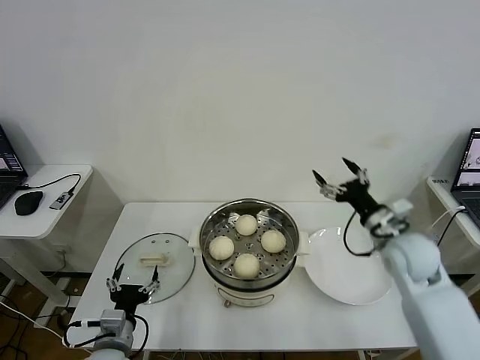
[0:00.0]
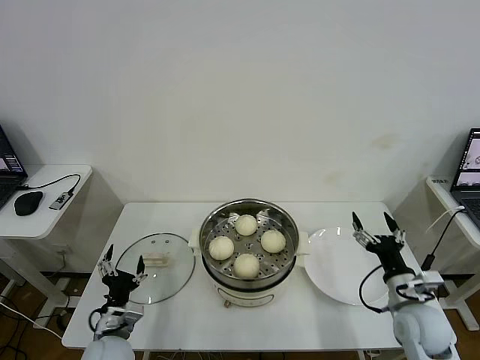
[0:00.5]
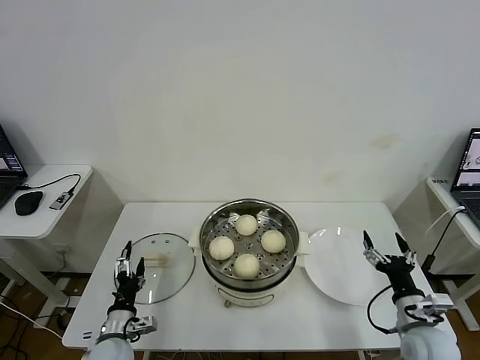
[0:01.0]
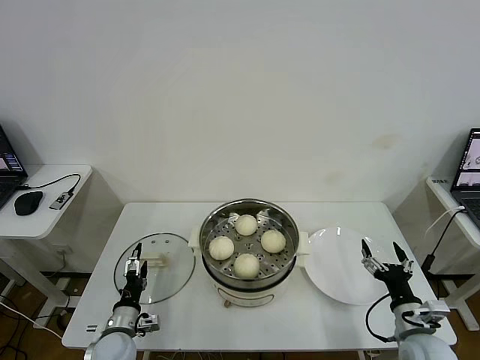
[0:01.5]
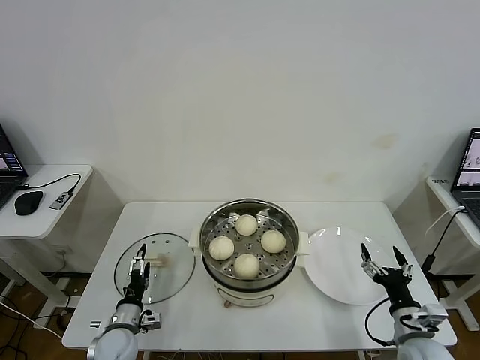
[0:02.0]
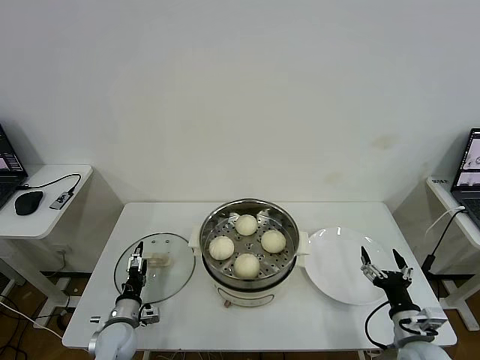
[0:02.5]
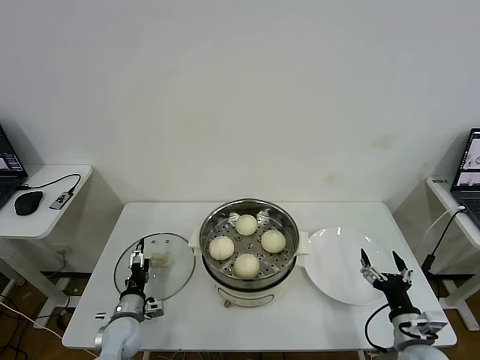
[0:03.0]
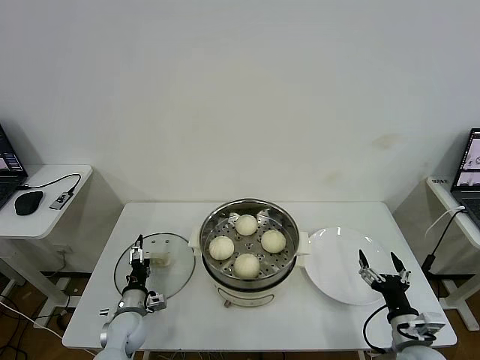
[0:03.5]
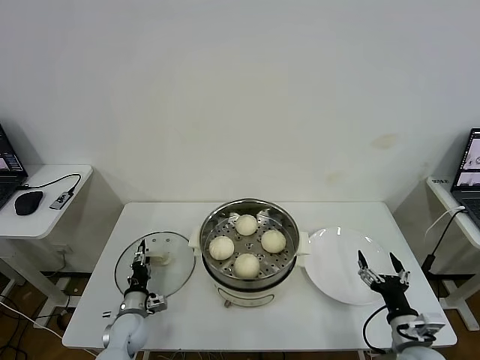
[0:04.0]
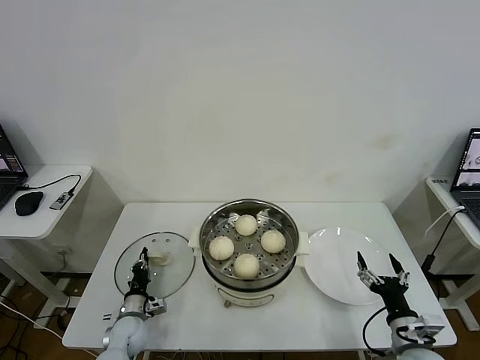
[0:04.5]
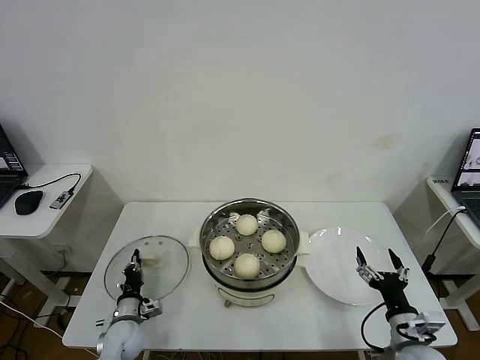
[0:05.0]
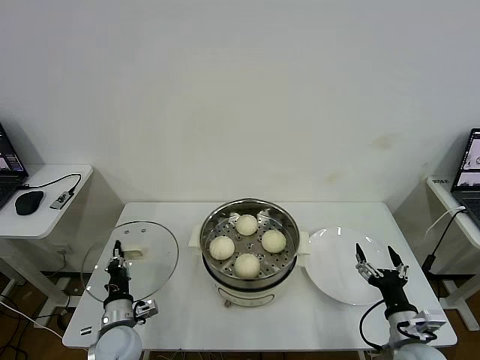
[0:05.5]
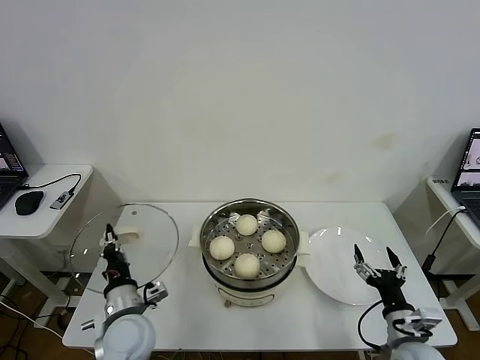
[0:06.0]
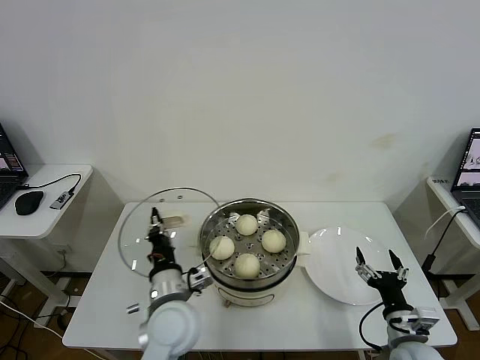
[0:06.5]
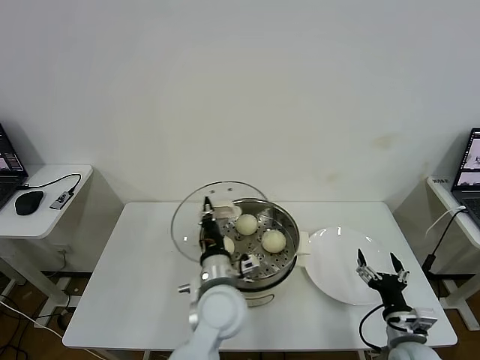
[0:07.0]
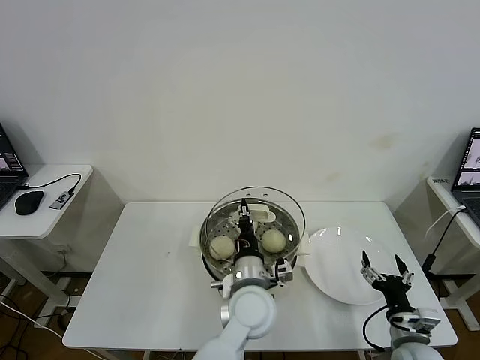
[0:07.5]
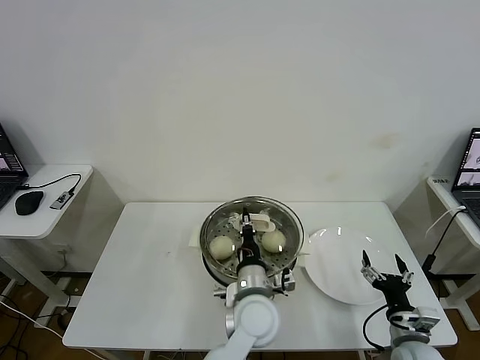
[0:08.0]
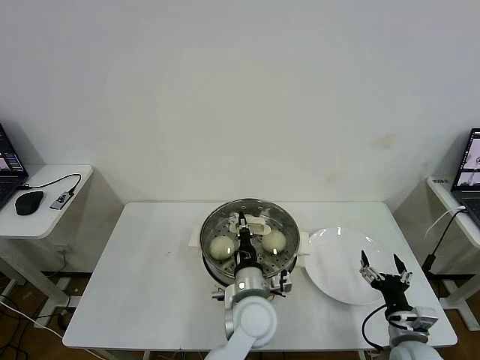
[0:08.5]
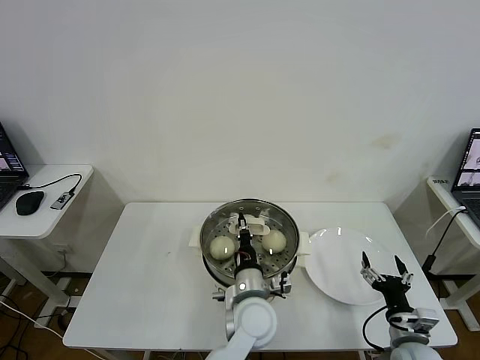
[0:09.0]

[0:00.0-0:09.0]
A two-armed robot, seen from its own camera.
Task of the whole recording: take steamed baozi put them in steamer then cover it.
Step, 0:00.0 to 0:04.5: Grasp the pot lid with left gripper.
0:00.0 to 0:02.0: The left gripper shifts some 10 cm downward and forward. Meanwhile the right gripper is displaced backward and downward by some 20 cm.
0:02.0 to 0:04.5: The left gripper heads downward, covering roughly 5 cm, and closes.
0:04.5 to 0:07.0: The left gripper heads to the right and upward, covering about 35 cm.
0:07.0 to 0:09.0: The left gripper moves to the right, approximately 5 cm.

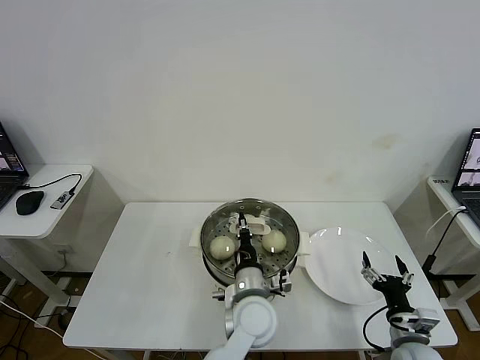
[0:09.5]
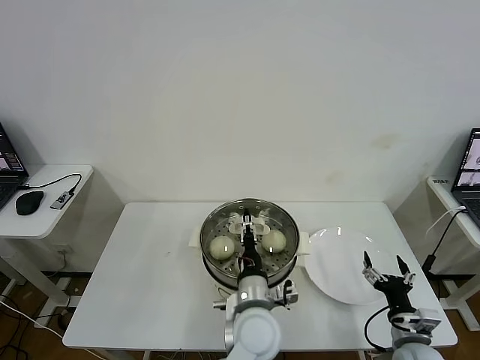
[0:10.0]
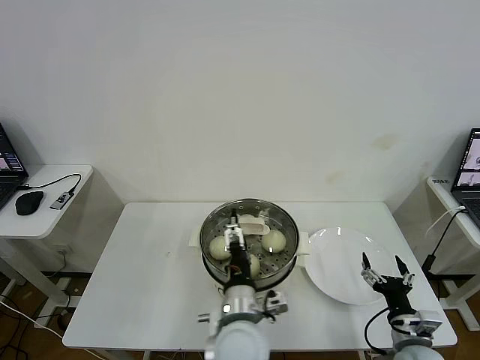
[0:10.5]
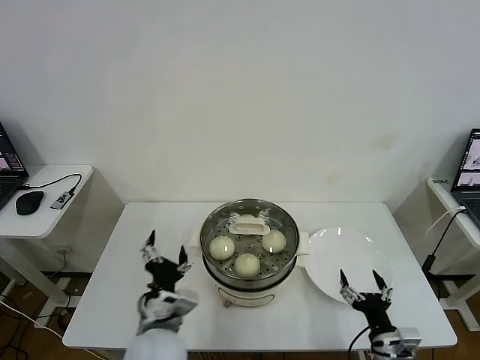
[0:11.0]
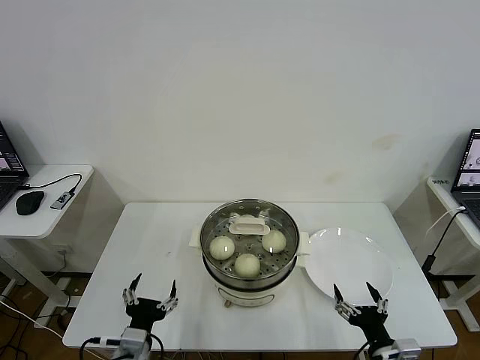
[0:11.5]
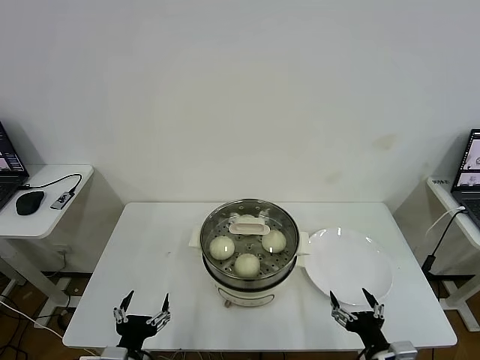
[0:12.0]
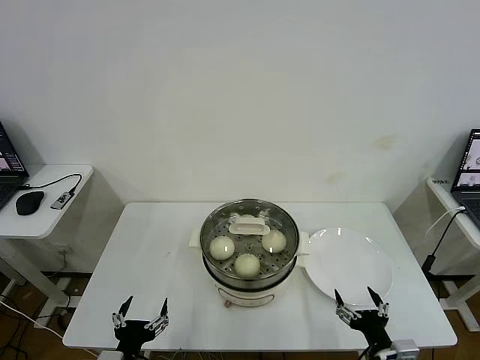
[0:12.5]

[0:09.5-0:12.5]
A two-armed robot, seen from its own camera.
Task of the whole recording: take steamed baozi put them in steamer then cover it.
0:09.5 to 0:11.0: The left gripper travels to the left and backward by some 15 cm, and opens its fingers. Meanwhile the right gripper moves approximately 5 cm.
0:11.0 to 0:12.5: The left gripper goes roughly 15 cm to the left, backward and downward.

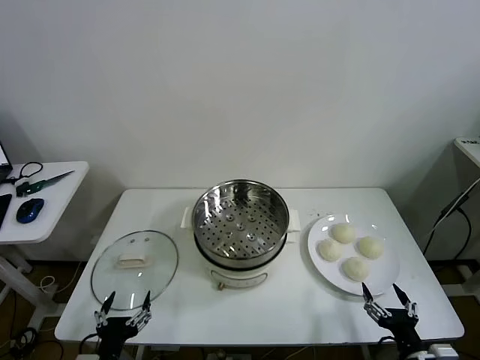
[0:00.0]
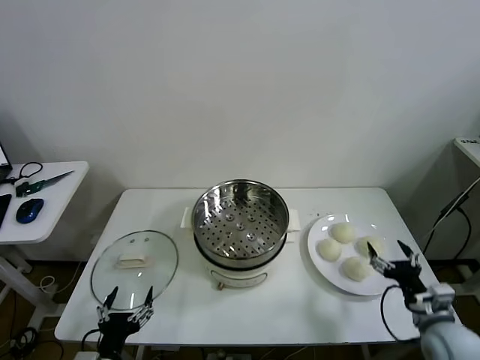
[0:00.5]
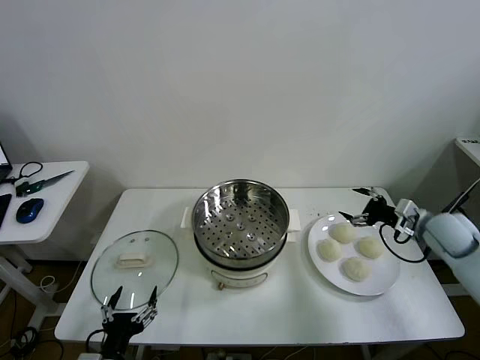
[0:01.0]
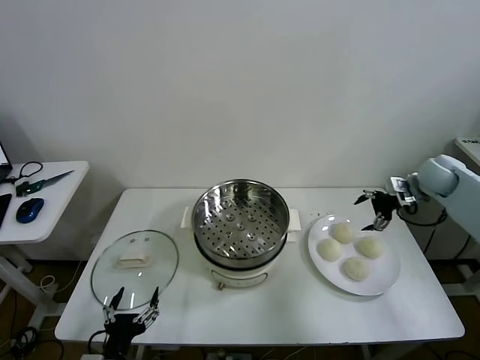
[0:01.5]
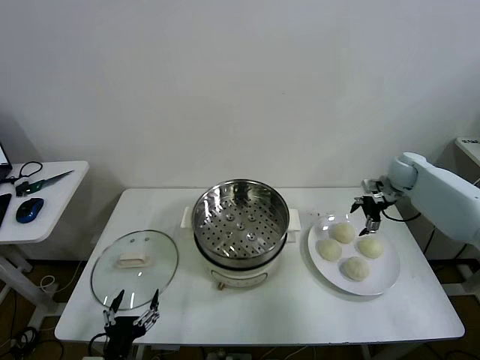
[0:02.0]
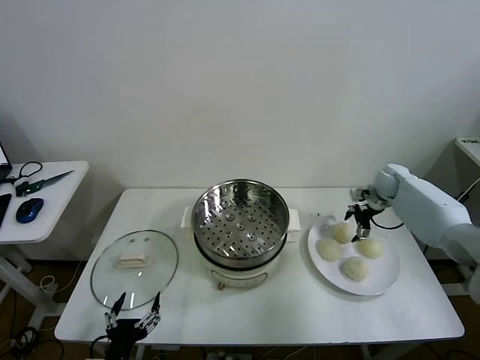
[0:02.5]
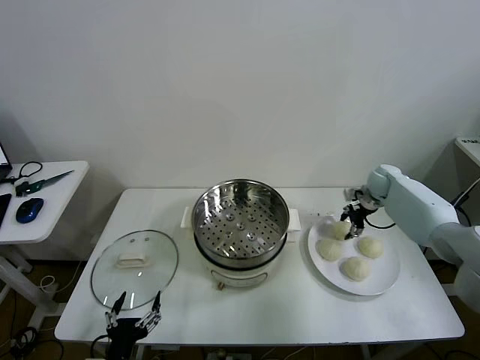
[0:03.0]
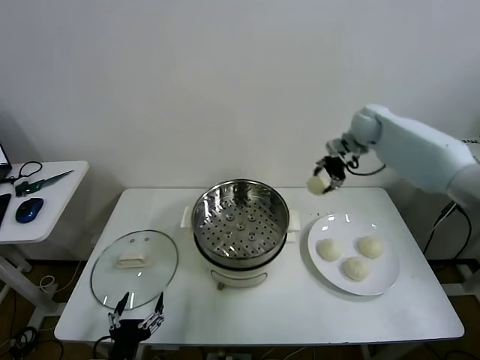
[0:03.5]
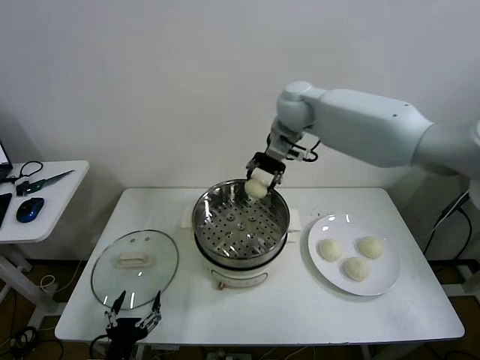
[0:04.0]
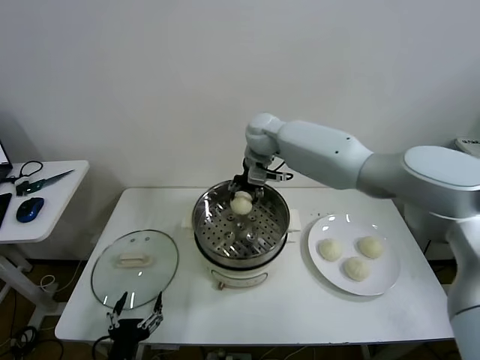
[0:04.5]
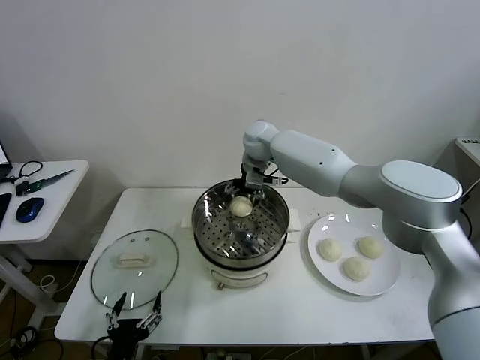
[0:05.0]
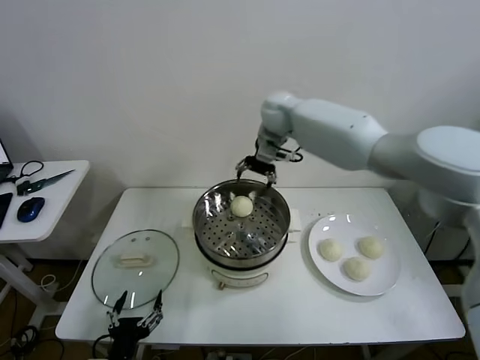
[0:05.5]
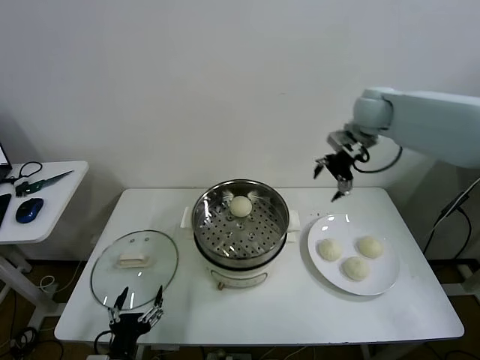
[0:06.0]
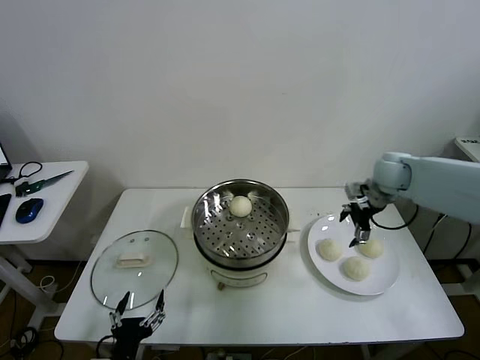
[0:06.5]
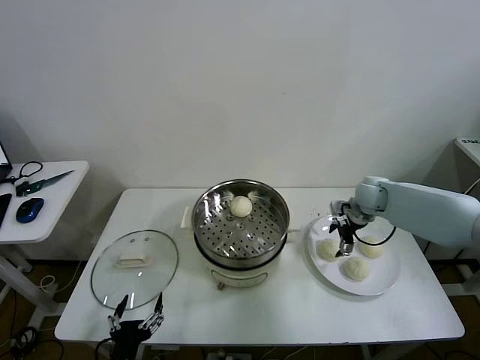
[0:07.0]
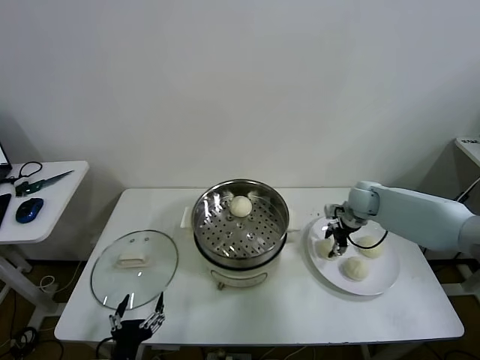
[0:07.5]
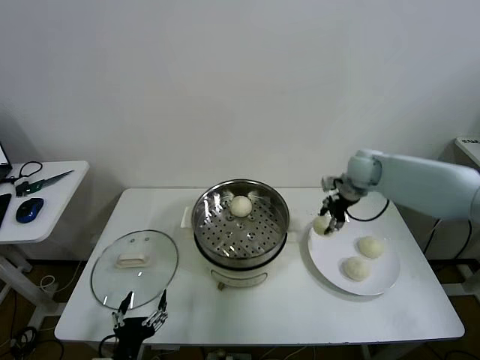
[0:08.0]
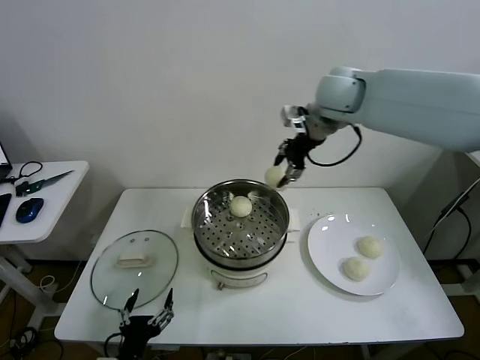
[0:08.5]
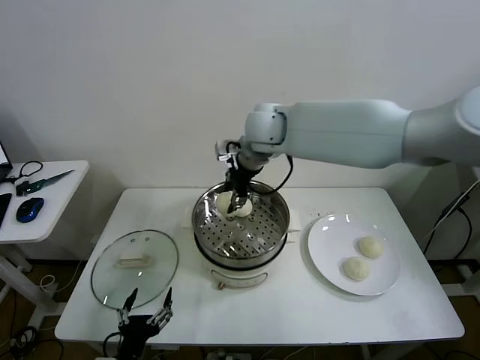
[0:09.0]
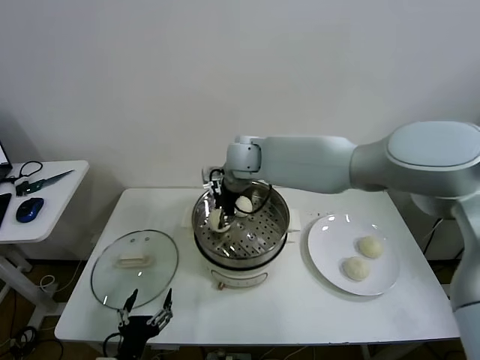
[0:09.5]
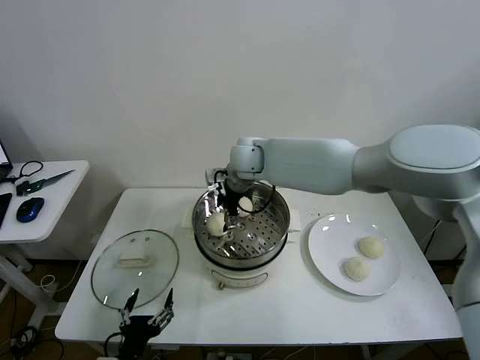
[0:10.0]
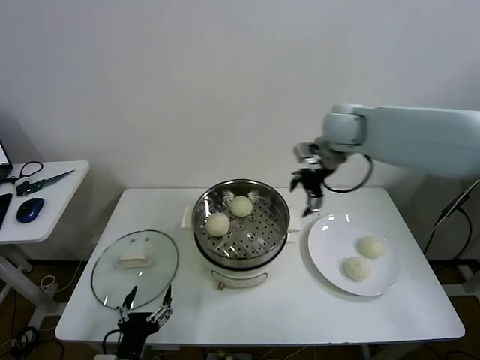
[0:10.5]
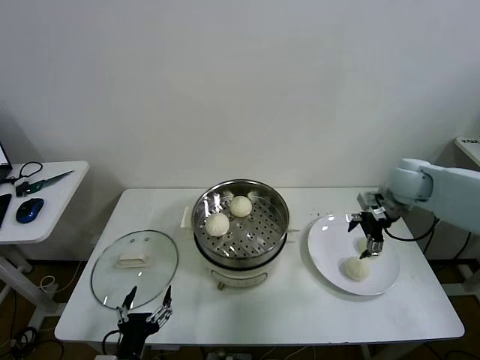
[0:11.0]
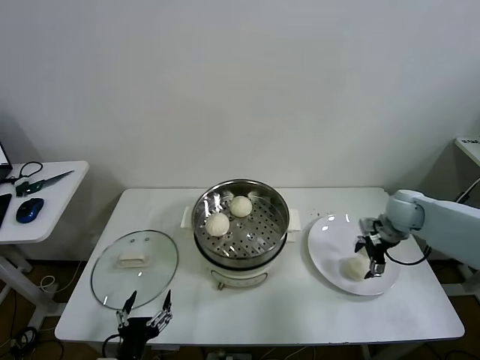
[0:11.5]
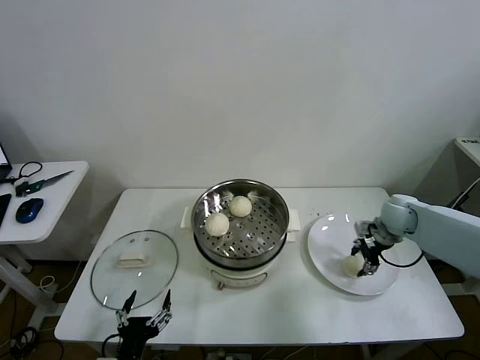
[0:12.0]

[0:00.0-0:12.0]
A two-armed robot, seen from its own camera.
Task of the whole recording: take steamed baozi put them in steamer then cover it.
Step, 0:00.0 to 0:02.5: Grasp the baozi in the plate with right gripper.
Step, 0:03.0 to 0:05.0: Place the baozi on the steamer with right gripper.
Step, 0:05.5 to 0:07.0: Grasp the baozi in the plate with right gripper.
Step, 0:07.5 to 0:09.5: Place the baozi on the steamer with right gripper.
Step, 0:10.0 to 0:11.5: Grasp the baozi in the plate with right gripper.
0:02.0 to 0:04.0: The right gripper moves to the left and upward, about 40 cm, and closes.
0:04.0 to 0:06.0: The right gripper moves to the right, some 20 cm, and opens up.
0:06.0 to 0:08.0: The right gripper heads downward, covering about 10 cm, and closes its fingers.
0:08.0 to 0:10.0: The right gripper heads to the left, covering about 30 cm, and opens.
0:10.0 to 0:12.0: The right gripper goes about 40 cm to the right and downward, and closes its fingers.

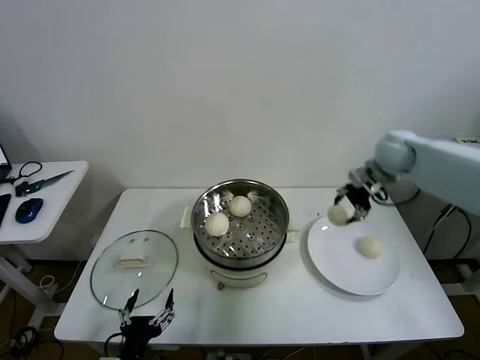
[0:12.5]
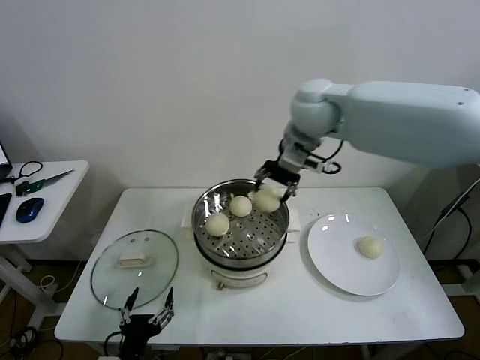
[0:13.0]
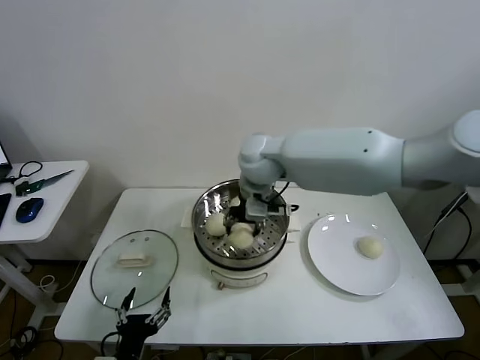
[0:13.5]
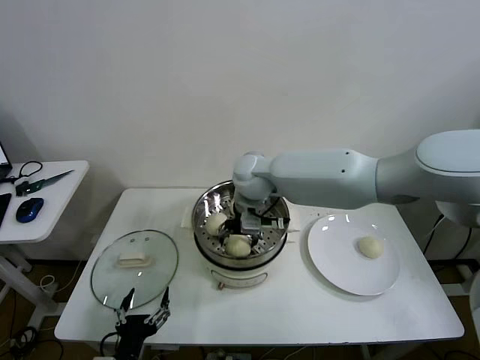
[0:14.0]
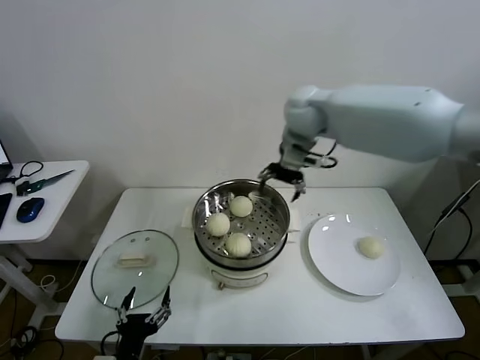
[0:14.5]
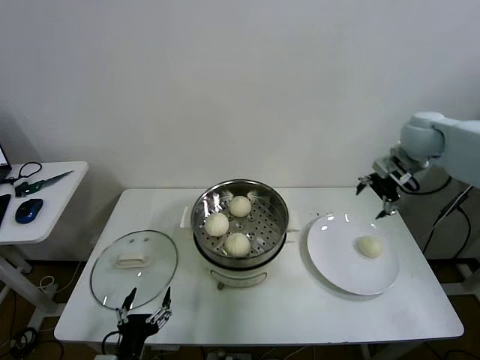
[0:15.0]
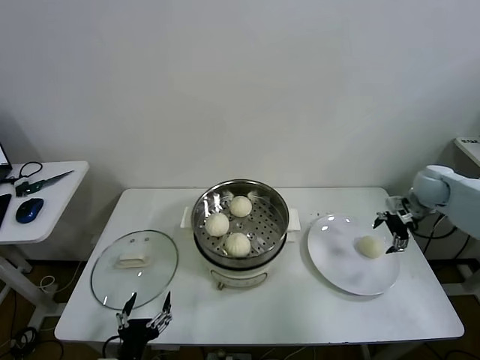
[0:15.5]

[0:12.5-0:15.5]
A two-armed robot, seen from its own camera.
Task of the whole recording: take steamed baozi put them in steamer then cover it.
Step, 0:12.5 to 0:14.0: Place the baozi on the steamer with right gripper.
0:12.5 to 0:14.0: The right gripper shifts some 30 cm to the left, and opens its fingers.
0:14.0 to 0:15.5: The right gripper moves to the right, approximately 40 cm.
